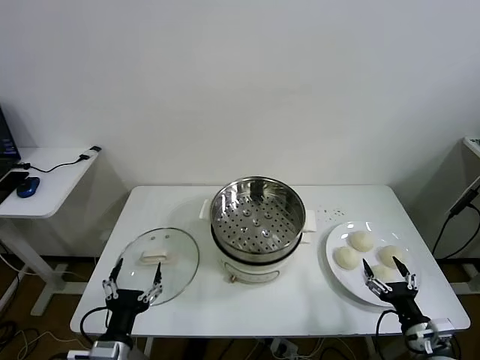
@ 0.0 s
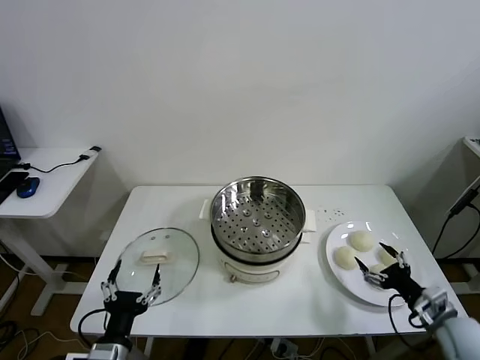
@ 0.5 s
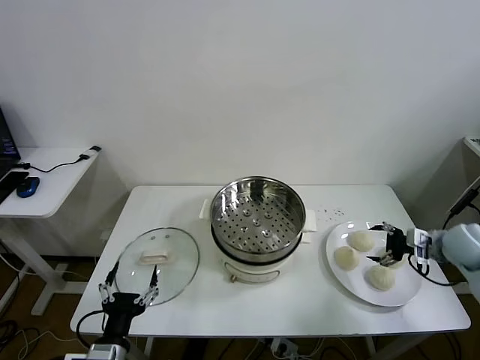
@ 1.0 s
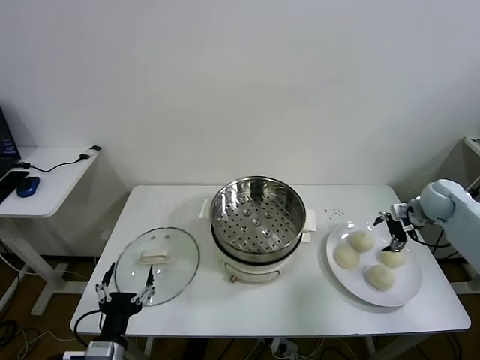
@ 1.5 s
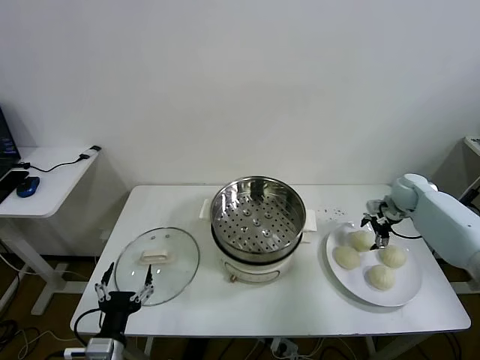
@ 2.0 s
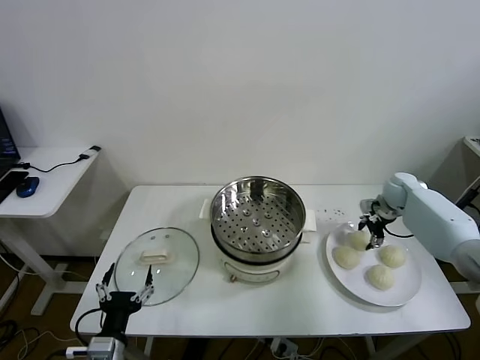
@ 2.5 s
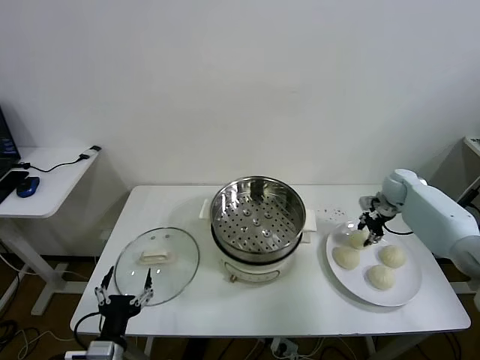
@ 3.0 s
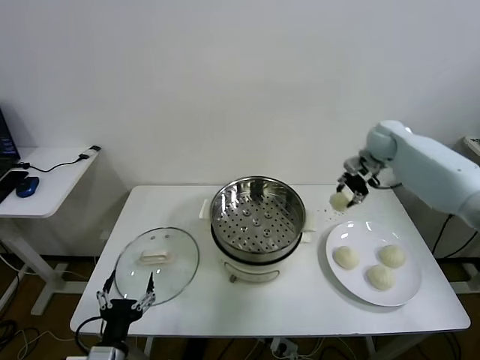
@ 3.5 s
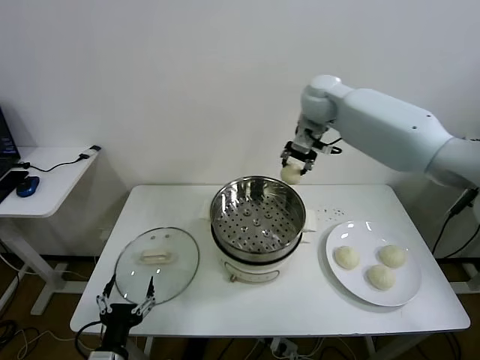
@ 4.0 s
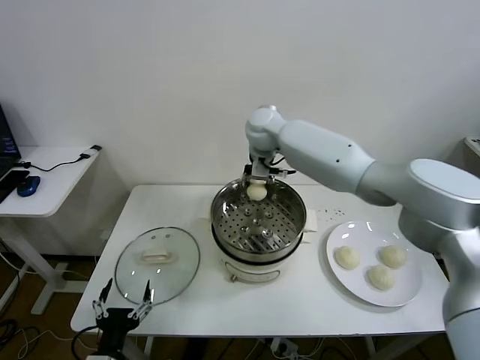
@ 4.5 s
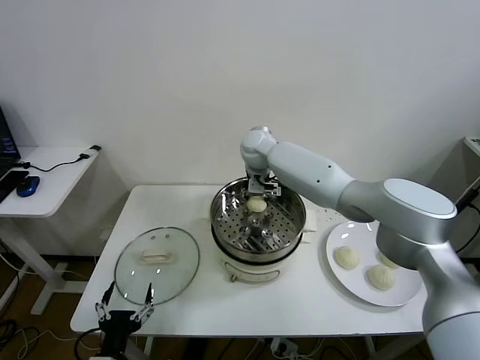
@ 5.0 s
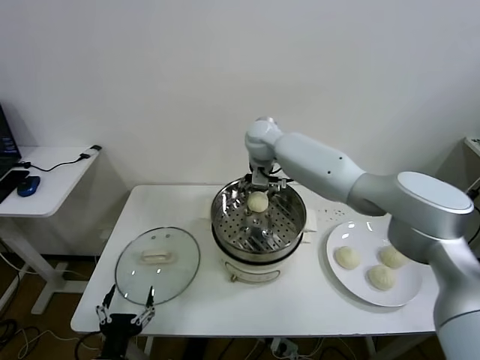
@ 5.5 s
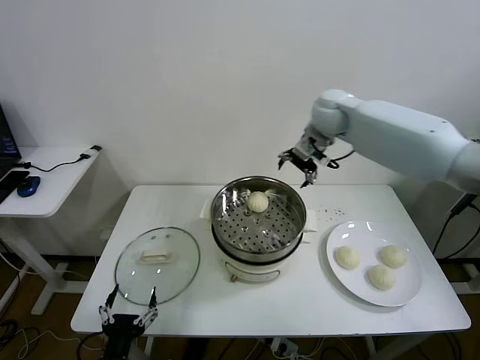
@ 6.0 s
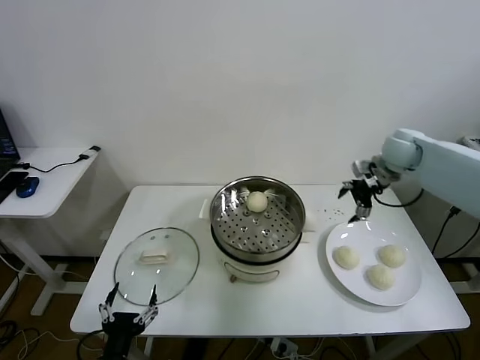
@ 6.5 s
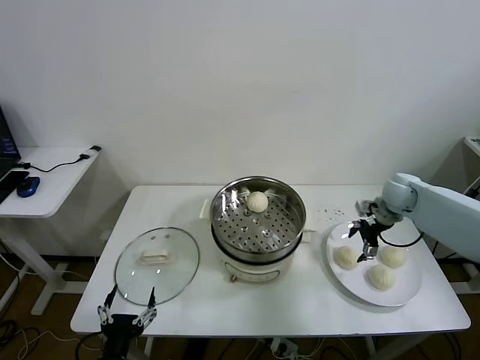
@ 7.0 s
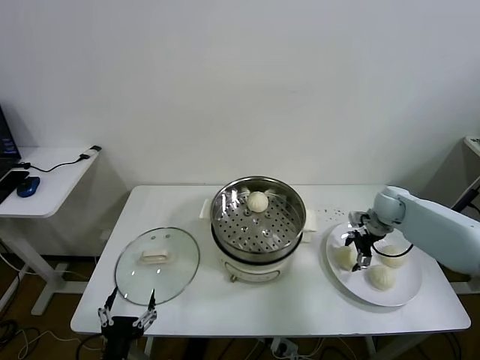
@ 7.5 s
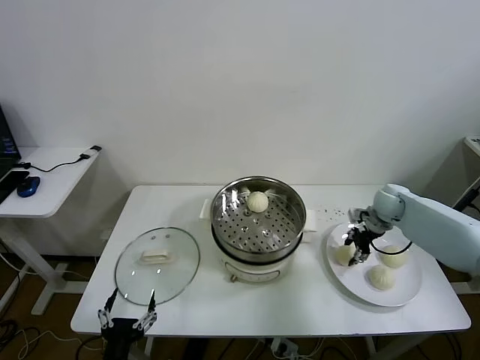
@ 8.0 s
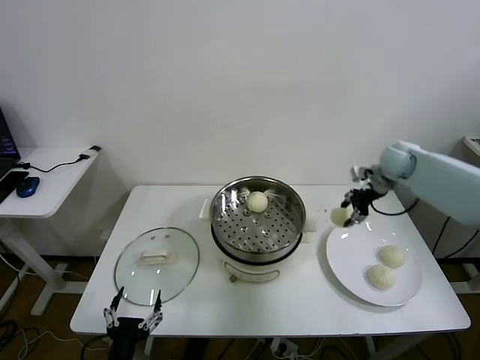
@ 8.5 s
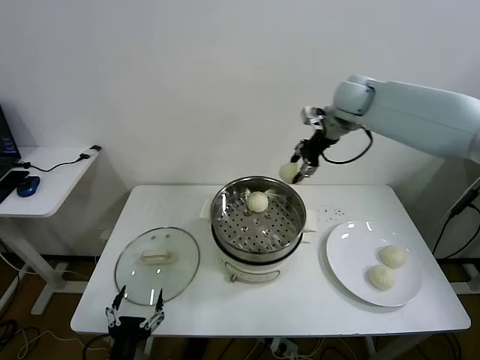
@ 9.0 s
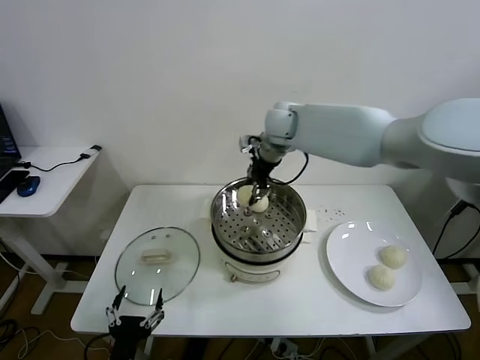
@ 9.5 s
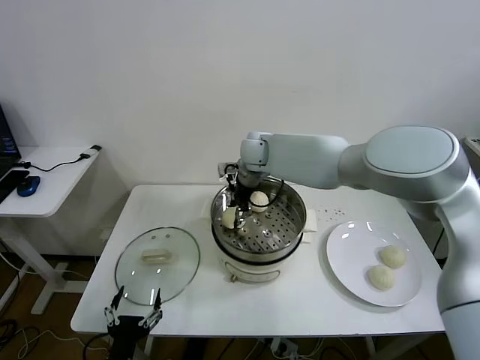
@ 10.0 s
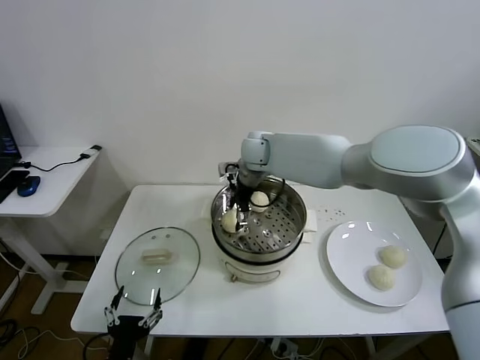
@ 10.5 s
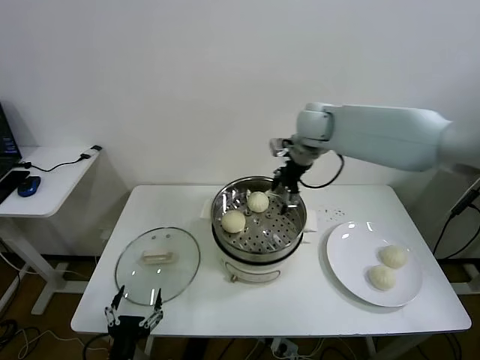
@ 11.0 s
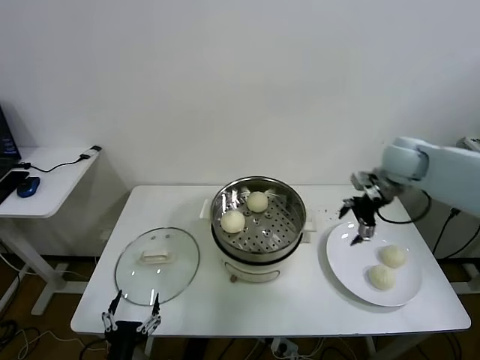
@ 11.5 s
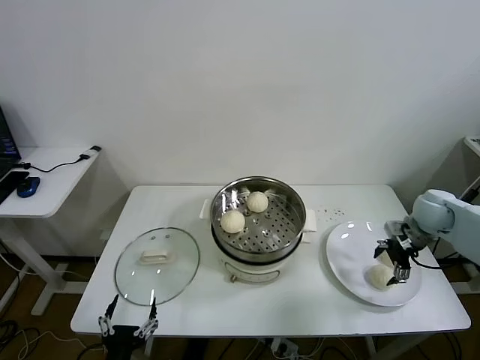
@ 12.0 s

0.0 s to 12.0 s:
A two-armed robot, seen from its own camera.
Task of the whole recording: take steamed baozi put them in steamer.
Step, 0.0 to 2.5 s: Grasp the baozi in the plate with right gripper.
Step, 3.0 to 5.0 s: Place the baozi on the steamer with right gripper.
Step, 6.0 to 7.5 s: Grasp the baozi in the plate with right gripper.
Step, 8.0 to 10.5 s: Place the baozi on the steamer with right gripper.
2.0 to 4.0 s: The right gripper travels to the left and upward by approximately 40 cm, and closes.
4.0 to 6.0 s: The right gripper goes roughly 10 cm to the right, and opens up.
6.0 to 8.0 s: The right gripper travels downward and to the right by some 30 cm, and closes up.
8.0 to 10.0 s: The right gripper heads to the left, covering about 35 cm.
10.0 to 12.0 s: The right gripper heads to the right, covering about 40 cm, and opens.

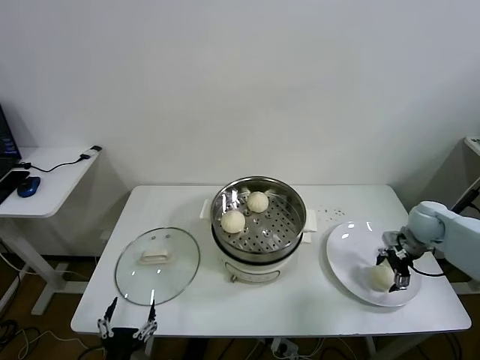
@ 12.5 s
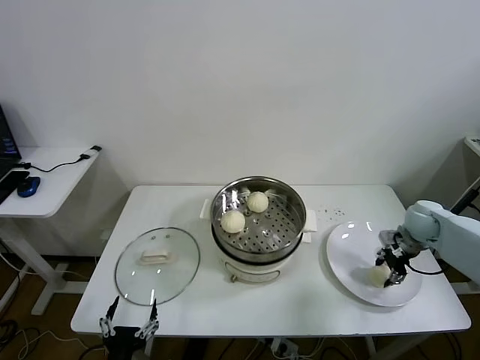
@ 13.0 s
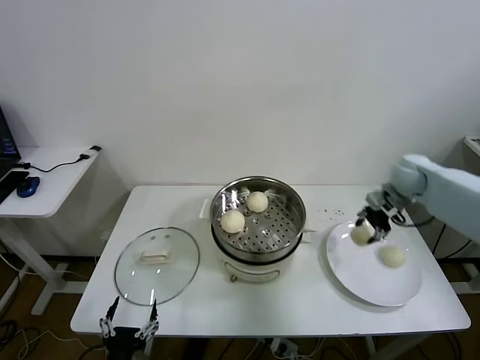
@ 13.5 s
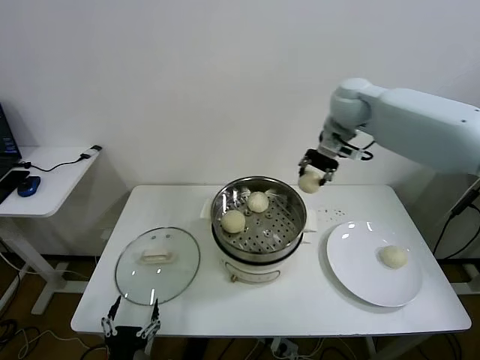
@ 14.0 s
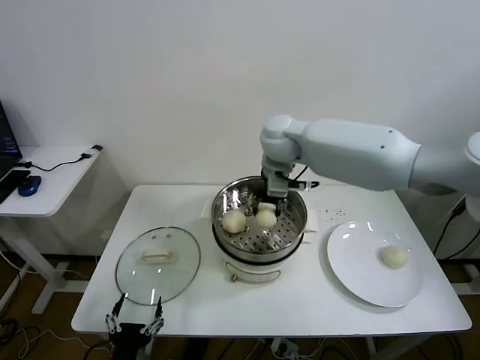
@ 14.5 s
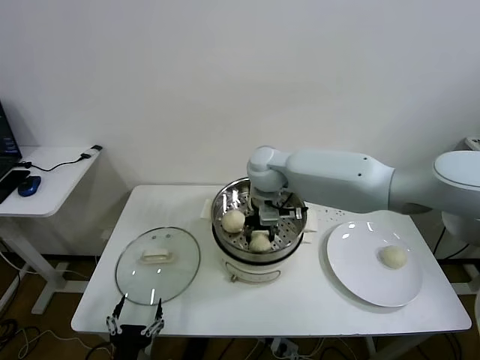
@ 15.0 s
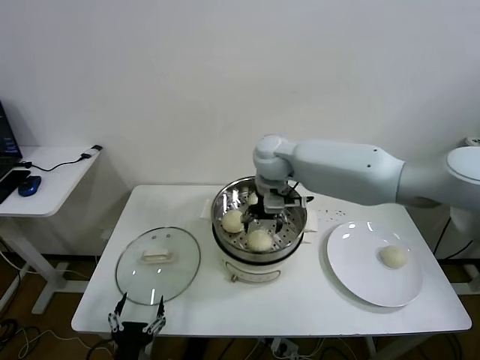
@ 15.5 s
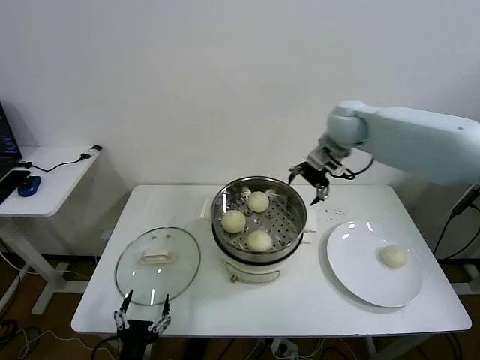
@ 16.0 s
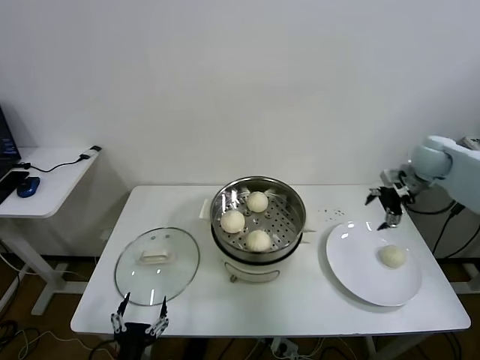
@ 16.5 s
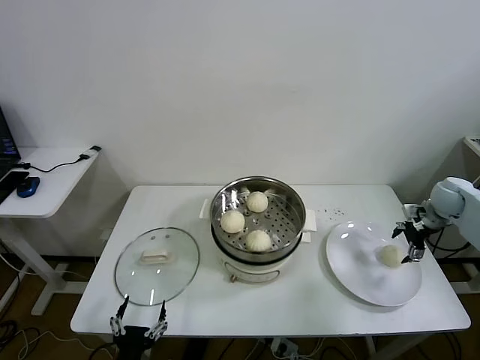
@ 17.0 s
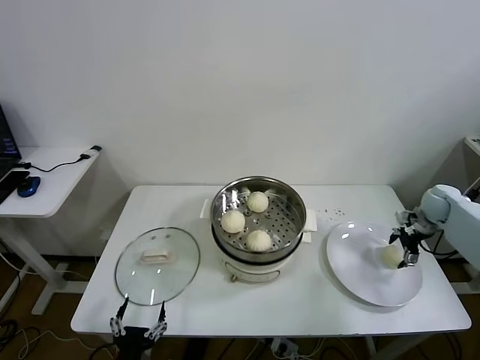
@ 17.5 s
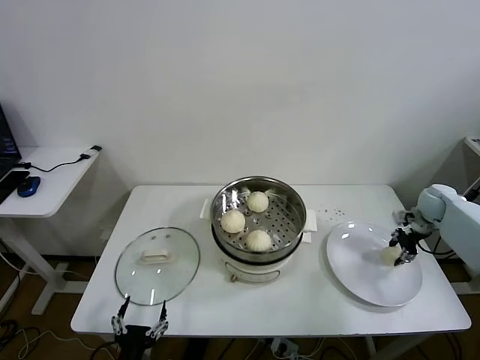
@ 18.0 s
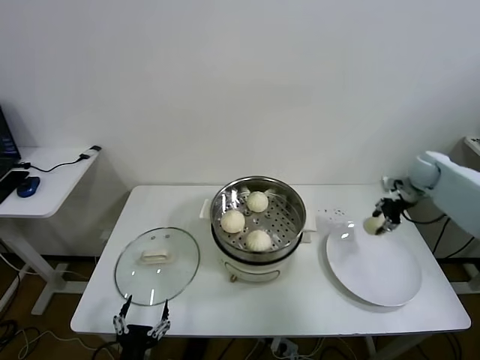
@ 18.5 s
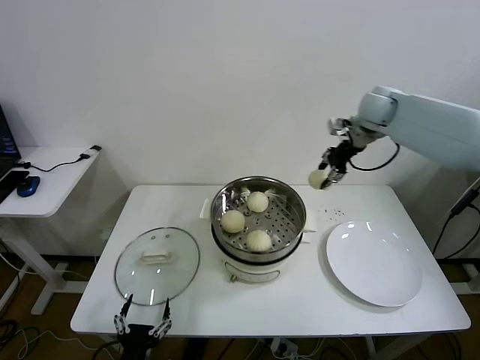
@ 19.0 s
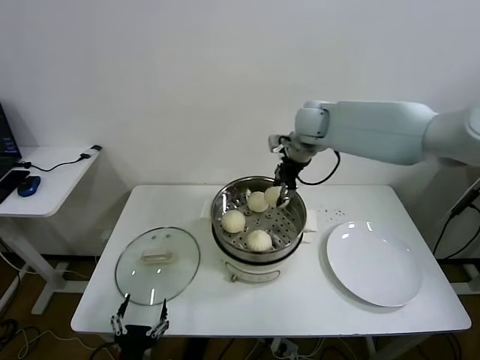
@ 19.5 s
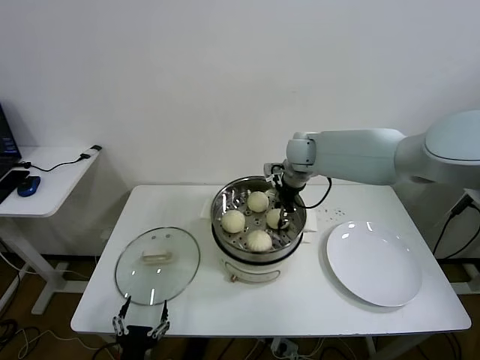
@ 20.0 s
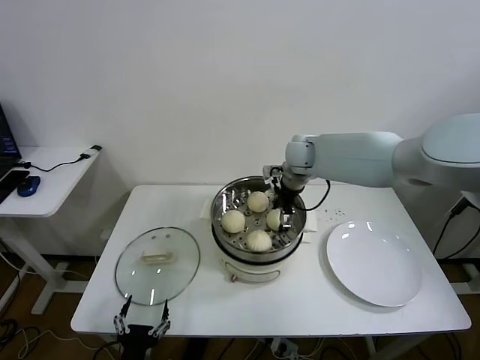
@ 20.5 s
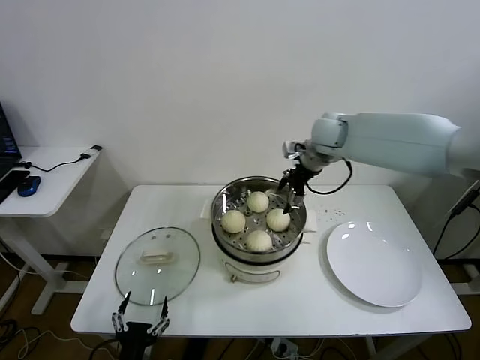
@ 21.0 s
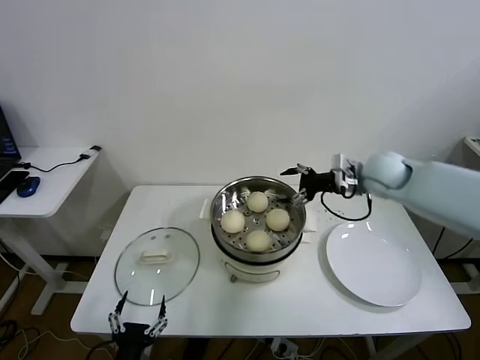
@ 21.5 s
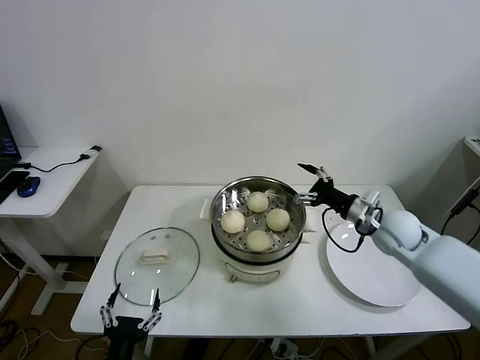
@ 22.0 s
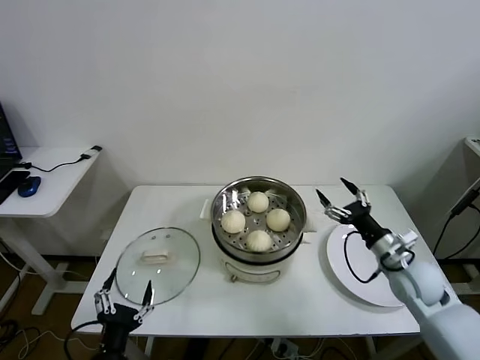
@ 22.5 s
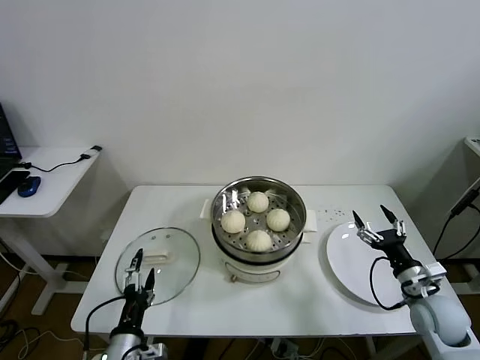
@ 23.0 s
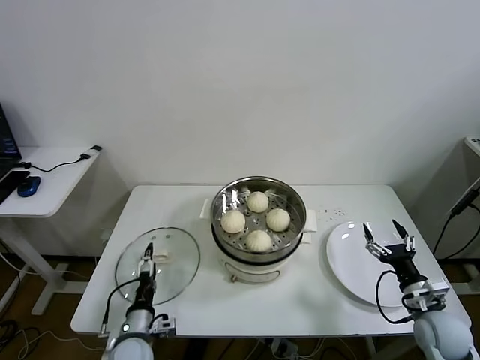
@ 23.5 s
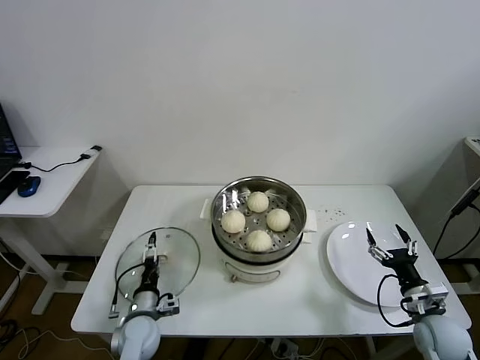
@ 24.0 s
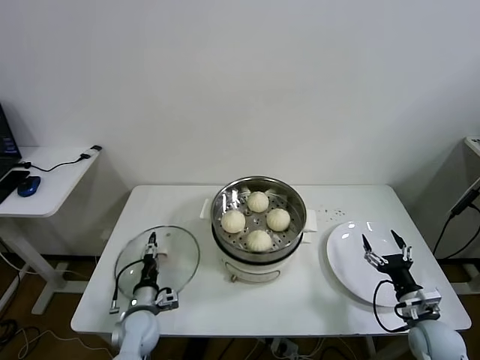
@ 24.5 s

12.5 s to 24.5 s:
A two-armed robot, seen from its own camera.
Task of the whole recording: take steamed baozi put them in steamer.
Step, 13.0 to 15.5 s: Place the baozi on the steamer with right gripper.
Step, 16.0 to 17.5 s: Grasp the baozi in the plate with right gripper.
Step, 18.0 to 20.5 s: Place the baozi on the steamer with right gripper.
12.5 to 14.5 s: The right gripper heads to the left and upward, covering about 40 cm, and closes its fingers.
14.5 to 16.5 s: The right gripper travels to the right by about 35 cm, and opens.
16.5 to 18.5 s: The right gripper reaches approximately 15 cm downward, then returns, and closes up.
18.5 to 20.5 s: The right gripper shifts roughly 30 cm to the left, and opens its fingers.
20.5 to 22.5 s: The right gripper is displaced backward, to the right and downward by approximately 35 cm. Meanwhile the left gripper moves upward, approximately 5 cm.
22.5 to 24.5 s: The right gripper travels downward and backward by approximately 15 cm, while the left gripper travels forward and downward by approximately 25 cm.

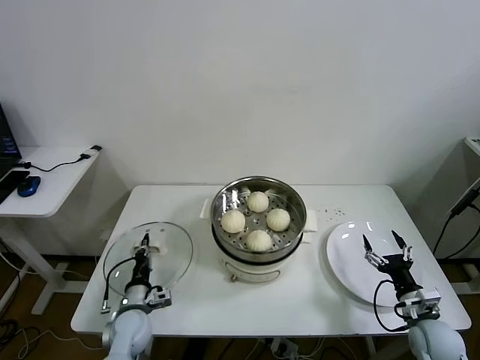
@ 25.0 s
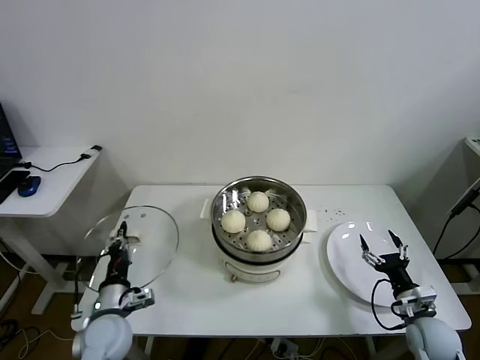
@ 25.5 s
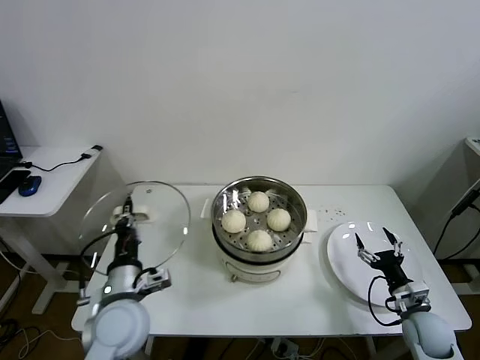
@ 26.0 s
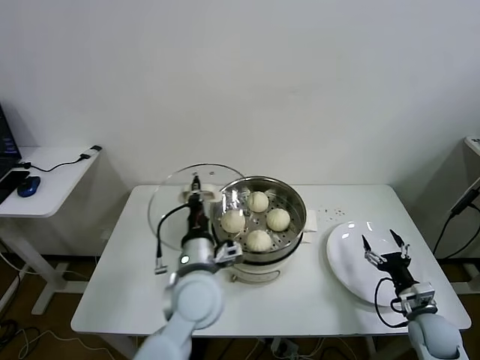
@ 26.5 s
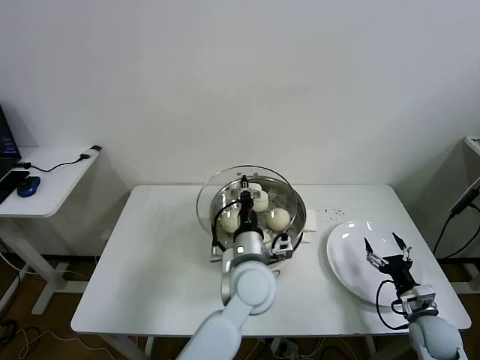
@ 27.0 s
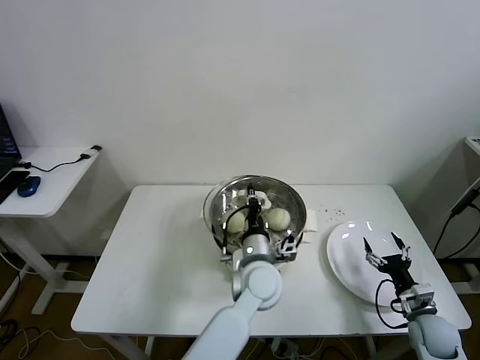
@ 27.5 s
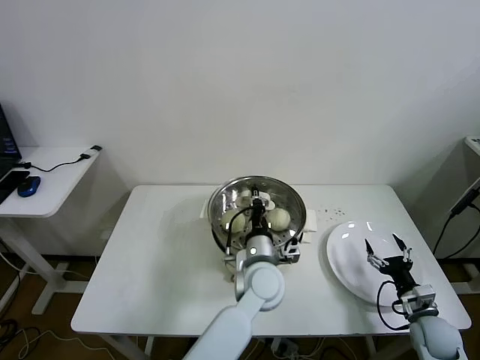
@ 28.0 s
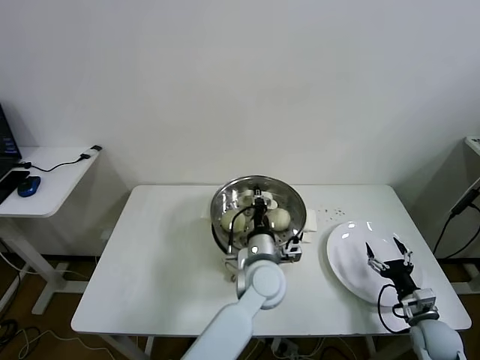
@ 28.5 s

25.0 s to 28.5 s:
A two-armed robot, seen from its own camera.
Task of the whole recording: take steamed baozi put them in steamer.
25.0 to 27.0 s: The left gripper shifts approximately 35 cm to the right and upward.
27.0 to 28.5 s: The left gripper shifts roughly 5 cm downward.
